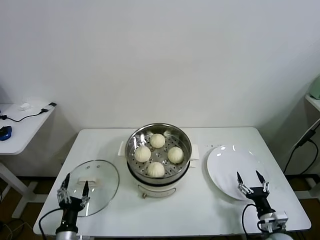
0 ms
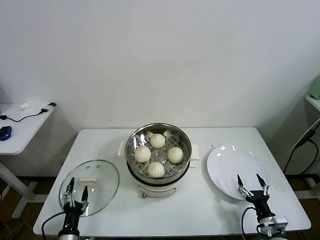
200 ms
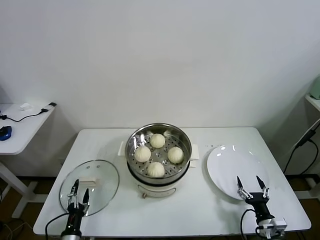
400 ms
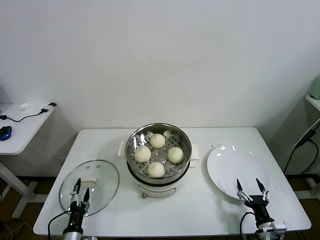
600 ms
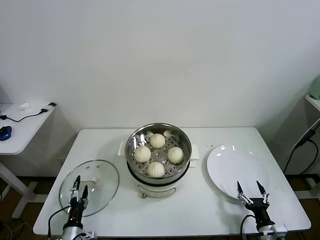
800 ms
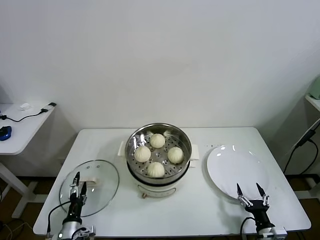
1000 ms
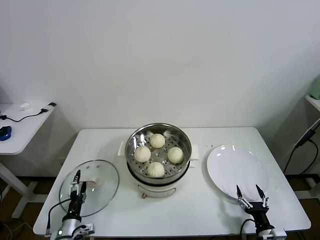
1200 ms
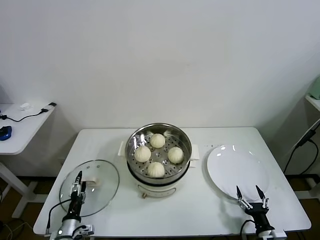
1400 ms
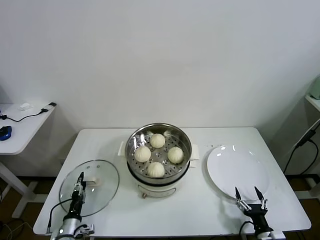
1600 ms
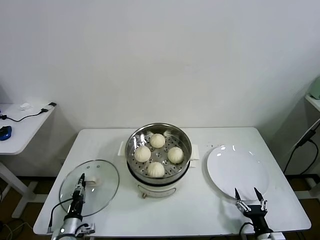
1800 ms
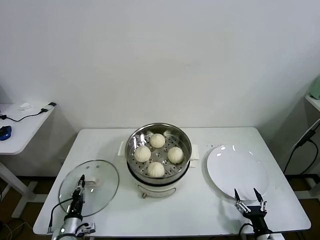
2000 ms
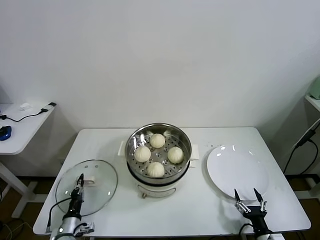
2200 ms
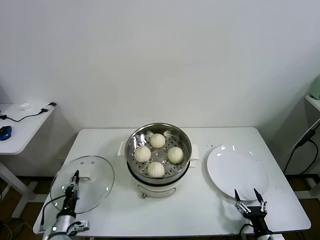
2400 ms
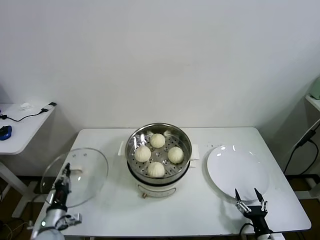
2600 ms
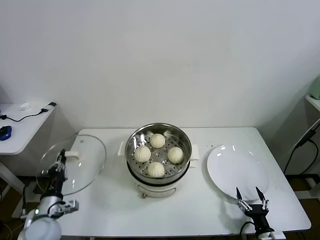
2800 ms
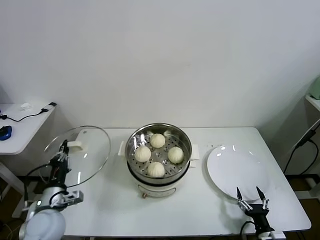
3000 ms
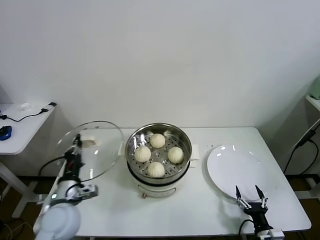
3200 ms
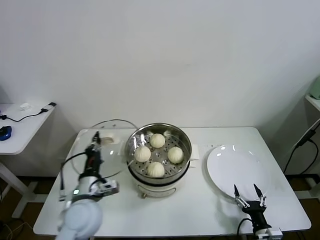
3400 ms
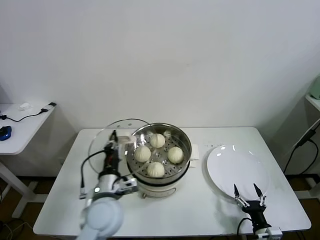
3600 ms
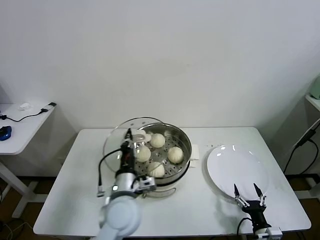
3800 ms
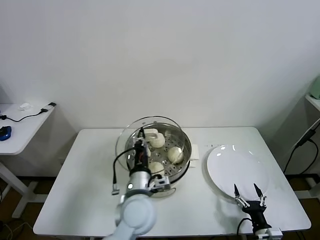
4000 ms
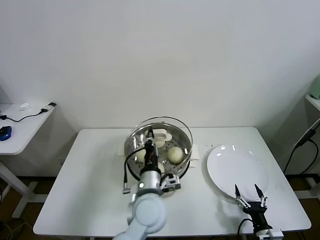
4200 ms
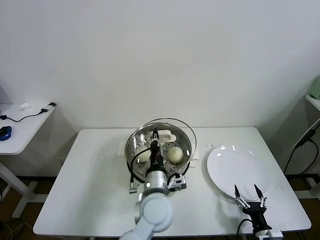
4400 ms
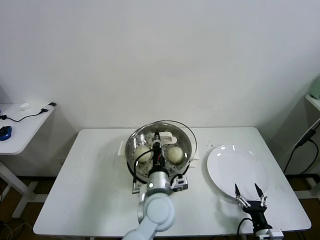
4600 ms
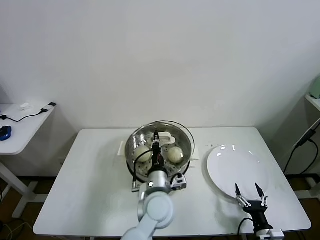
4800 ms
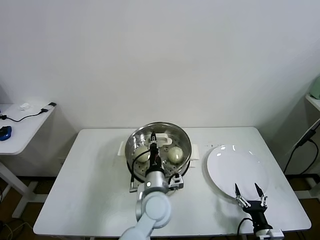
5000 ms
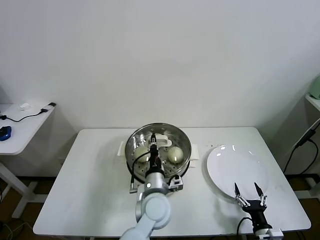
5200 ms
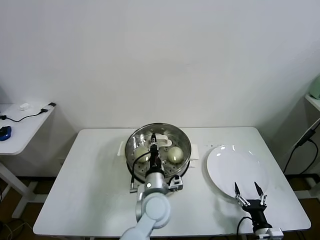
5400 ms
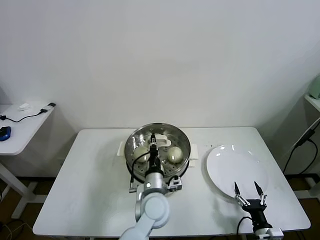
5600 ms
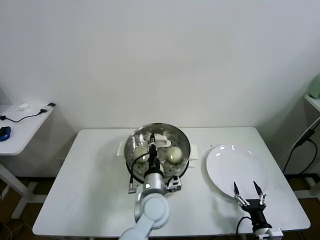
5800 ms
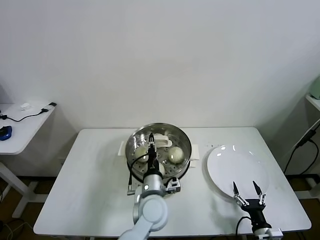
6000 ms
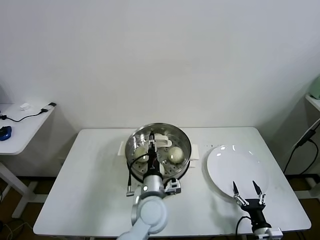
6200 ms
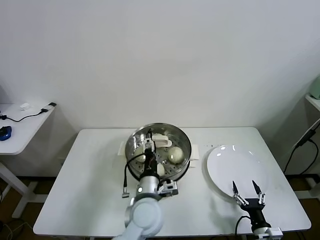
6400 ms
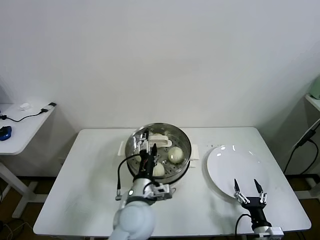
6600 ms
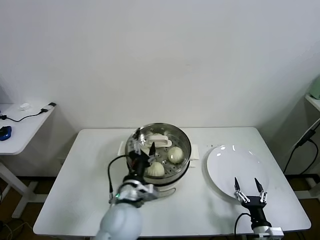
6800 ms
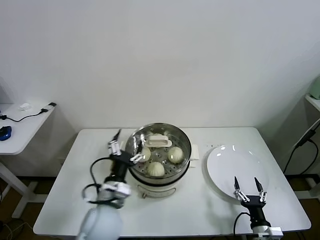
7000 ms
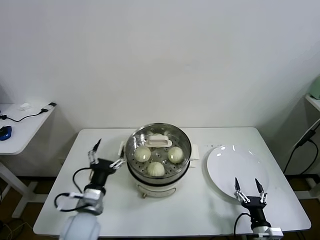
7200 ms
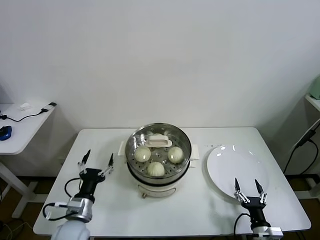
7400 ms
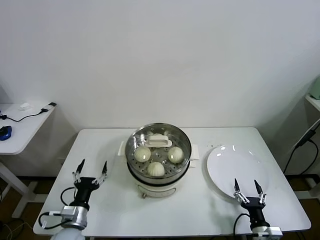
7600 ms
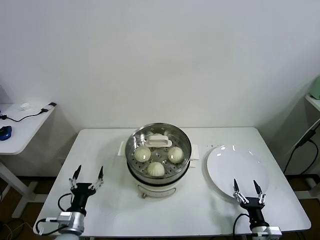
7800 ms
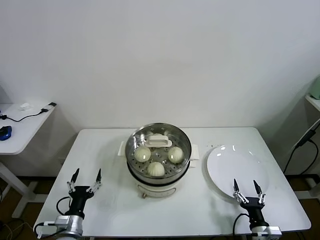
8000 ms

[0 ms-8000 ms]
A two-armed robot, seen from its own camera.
Task of the whole recording: take steamed baozi put them in steamer.
Step, 0 ms to 2000 ms: Grasp the pot lid with left gripper.
Step, 2200 ms to 6600 ms: Place the pot lid on the steamer with left gripper.
0 ms to 1600 ms: The left gripper shifts about 10 cm downward and forward. Meanwhile the right gripper goes some 5 cm backward.
1600 ms to 3200 ms: The left gripper shifts some 20 cm upward, and closes its fingers.
3200 ms to 4800 ms: The left gripper heads to the right, covering about 30 cm.
4800 ms to 6400 ms: The left gripper opens.
6400 ms to 8000 ms: The left gripper is displaced to the left and downward by about 30 cm.

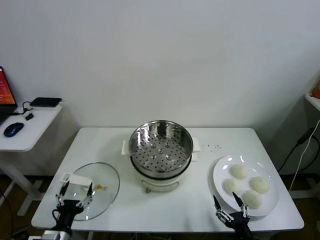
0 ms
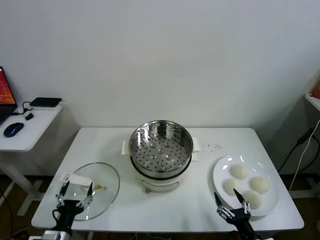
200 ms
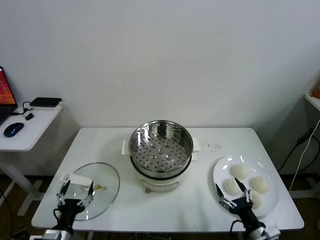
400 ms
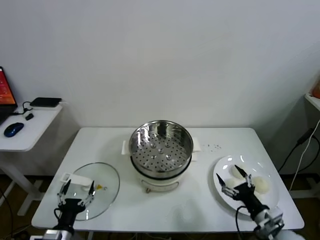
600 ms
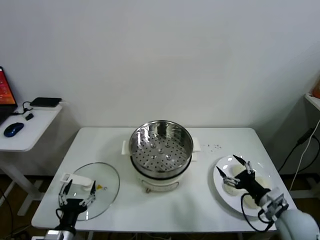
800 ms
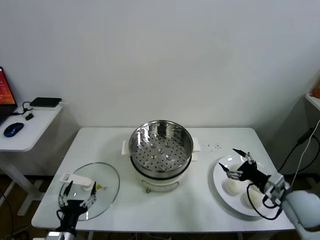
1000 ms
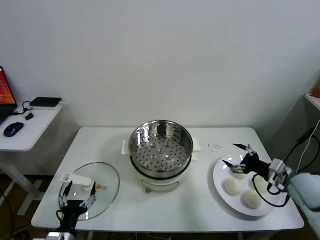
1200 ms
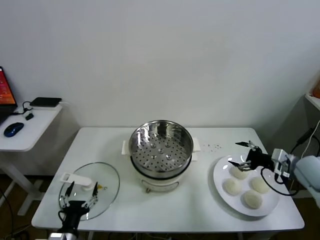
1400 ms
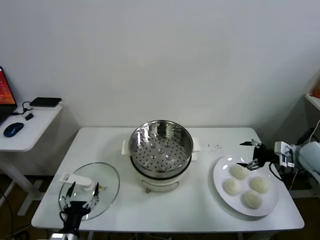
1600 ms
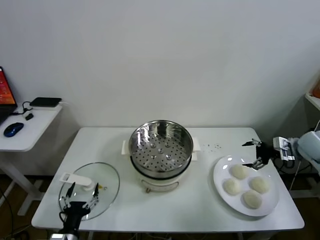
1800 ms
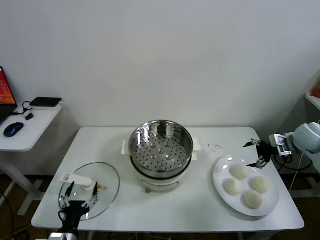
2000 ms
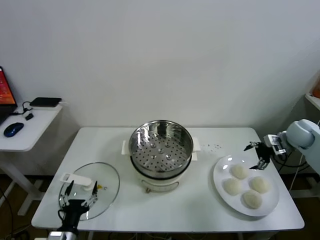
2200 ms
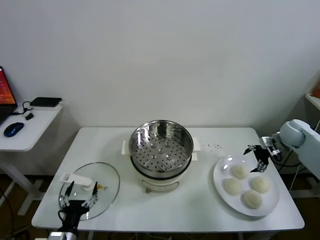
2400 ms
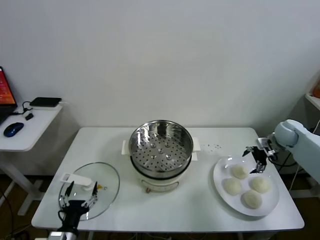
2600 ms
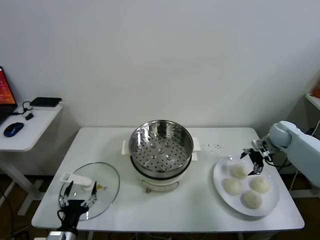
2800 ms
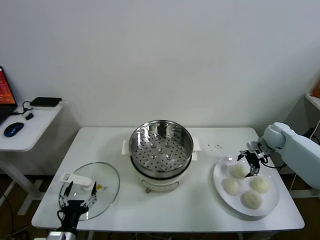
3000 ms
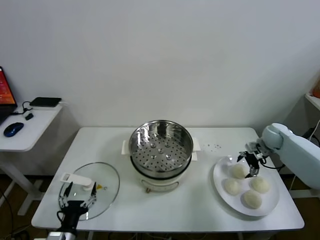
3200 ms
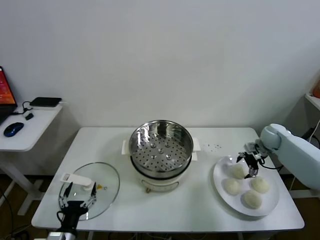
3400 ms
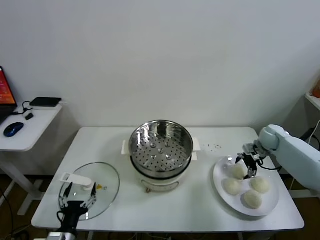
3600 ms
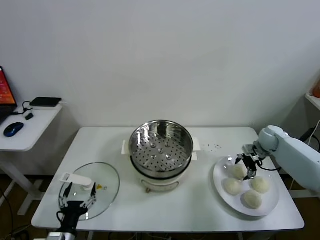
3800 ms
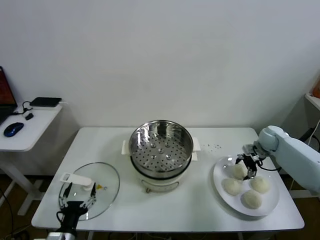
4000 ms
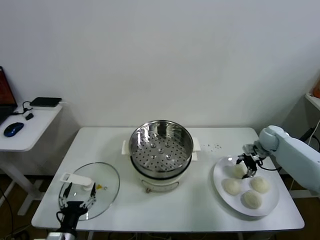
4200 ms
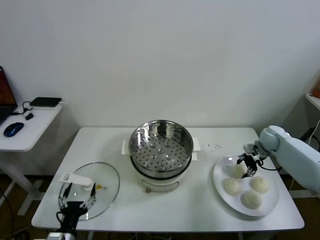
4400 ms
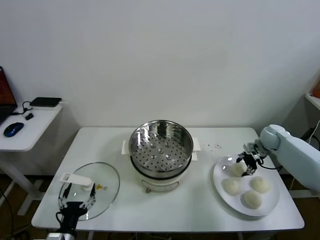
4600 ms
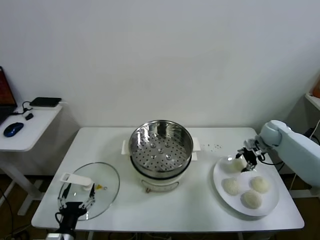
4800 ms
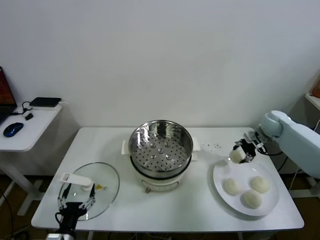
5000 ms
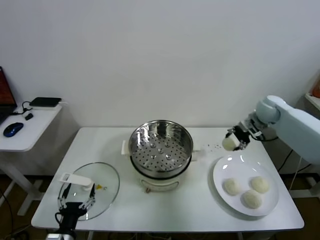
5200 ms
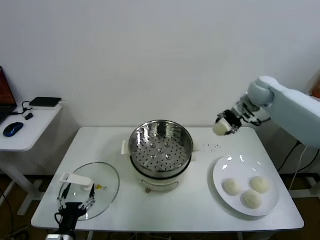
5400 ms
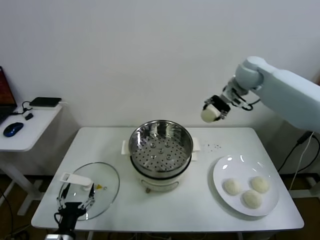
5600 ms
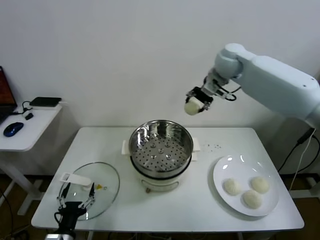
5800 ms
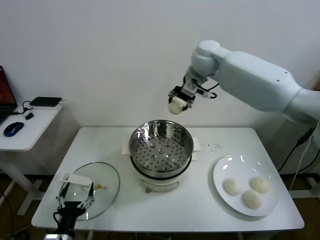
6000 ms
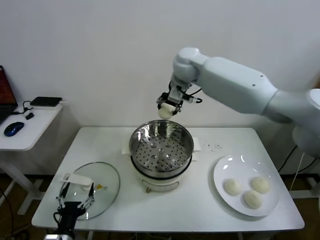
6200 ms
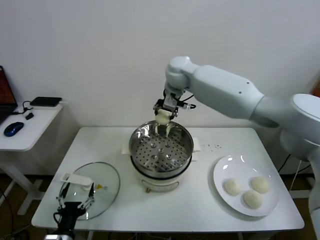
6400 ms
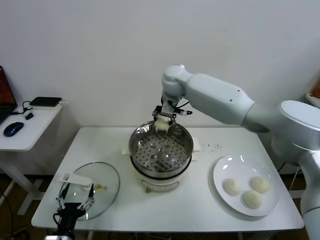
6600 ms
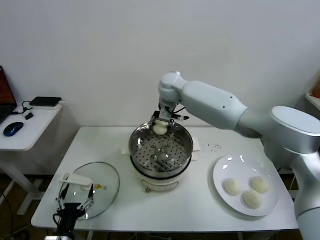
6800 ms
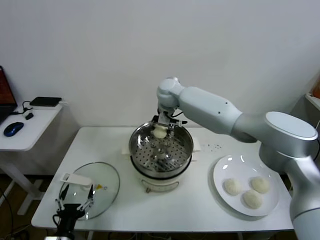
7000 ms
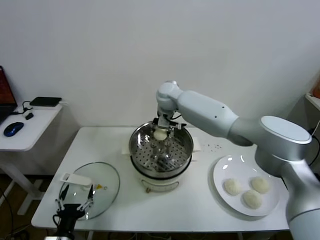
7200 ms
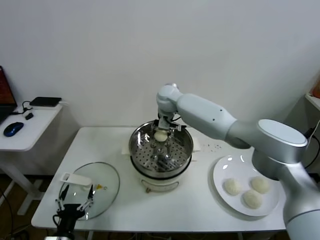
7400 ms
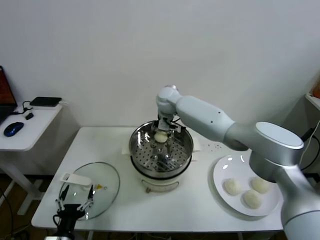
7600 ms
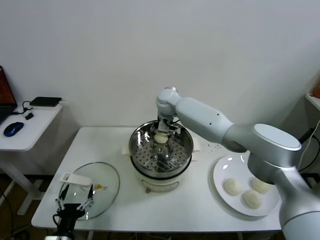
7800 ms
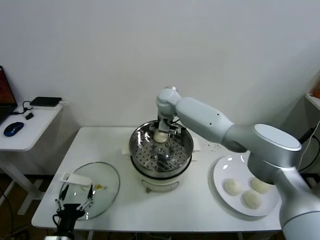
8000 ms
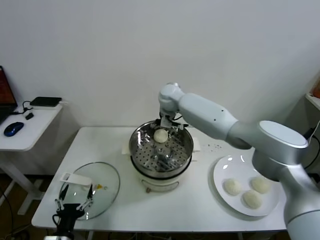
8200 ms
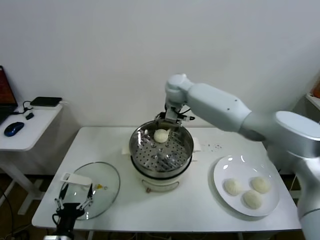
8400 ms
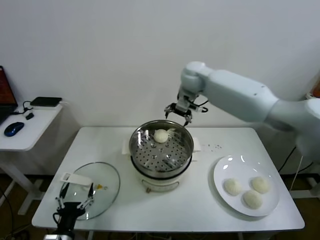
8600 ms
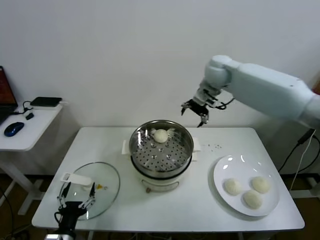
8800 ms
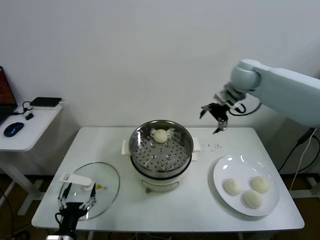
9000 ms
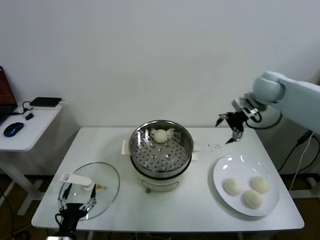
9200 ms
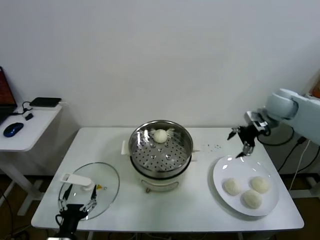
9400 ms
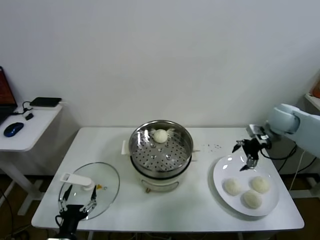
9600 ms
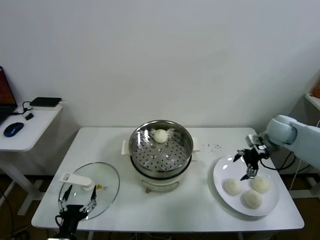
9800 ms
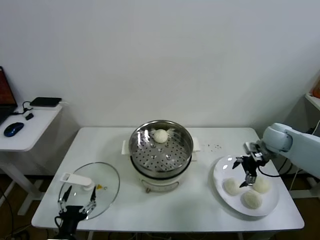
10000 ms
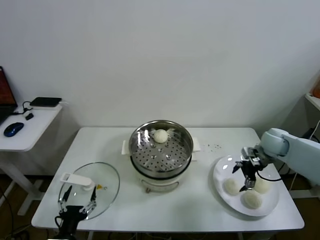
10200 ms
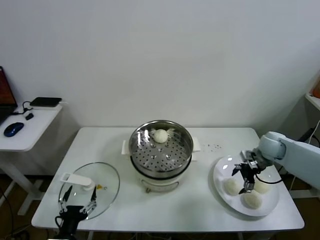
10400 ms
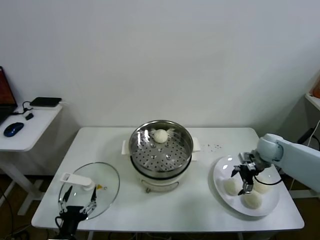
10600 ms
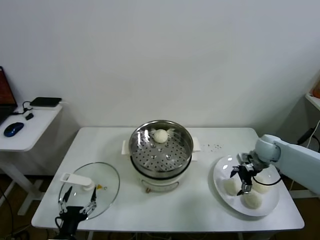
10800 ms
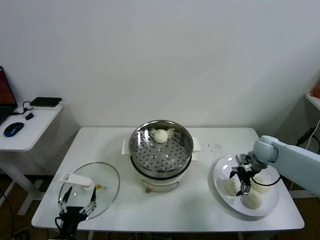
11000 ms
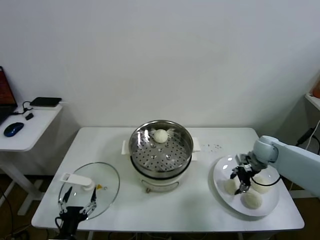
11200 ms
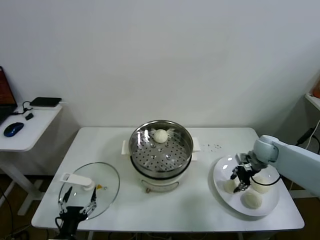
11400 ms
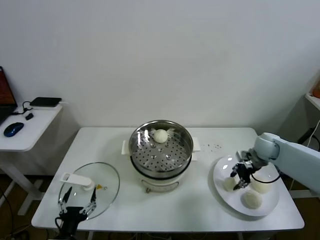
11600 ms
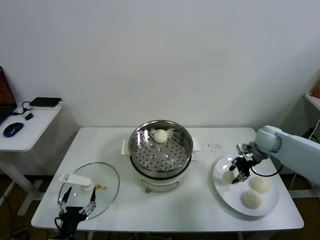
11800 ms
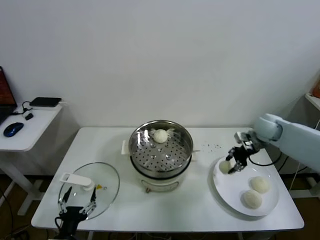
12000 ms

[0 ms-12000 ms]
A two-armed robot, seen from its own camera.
Task of the whole recording: take steamed baozi put them in steamer.
Step, 0 ms to 4400 ms: Grasp the baozi in the plate with right gripper.
Step, 4600 ms to 8000 ms: Place the baozi on the steamer with right gripper.
Step, 8200 ms to 11400 ms: Grasp the baozi in the plate with right gripper.
1600 ms to 3000 ms: The right gripper is displaced forward and downward by roughly 15 cm.
3000 ms to 4400 ms: The right gripper closes.
4400 ms to 6000 ms: The right gripper heads to the left and upward, covering about 50 cm.
6000 ms to 7600 ms: The right gripper is displaced downward and to the left by about 20 cm.
7600 ms to 9000 ms: The right gripper is displaced to the right and upward by roughly 30 cm, and opens.
9000 ms to 10400 ms: The right gripper heads downward and to the right, covering roughly 25 cm.
10400 ms to 12000 ms: The right gripper goes approximately 5 cm upward, and closes up.

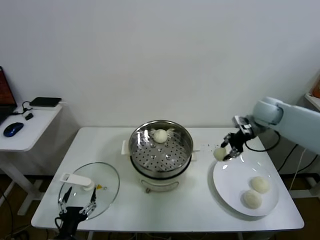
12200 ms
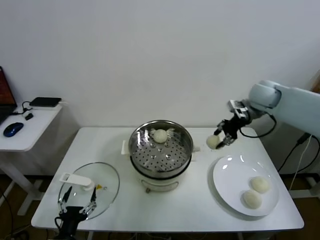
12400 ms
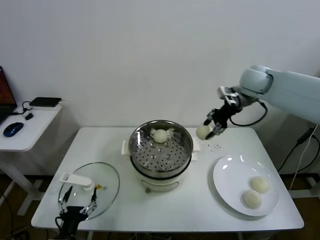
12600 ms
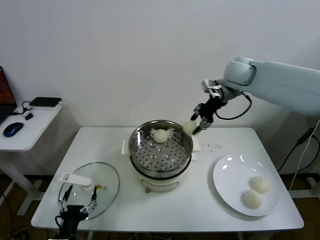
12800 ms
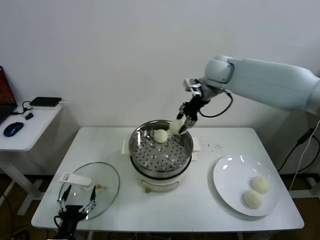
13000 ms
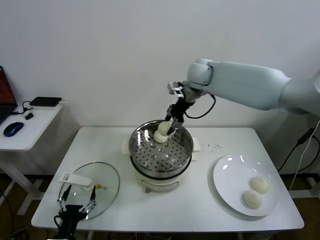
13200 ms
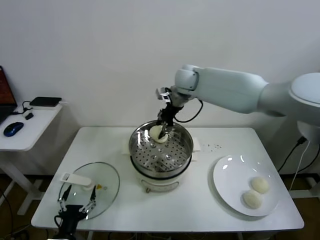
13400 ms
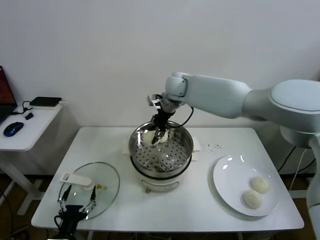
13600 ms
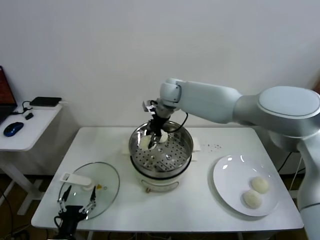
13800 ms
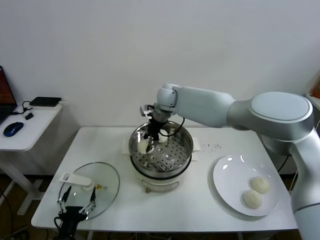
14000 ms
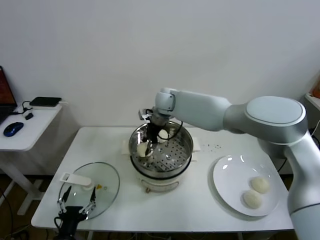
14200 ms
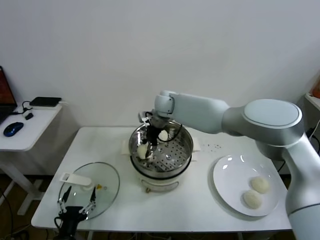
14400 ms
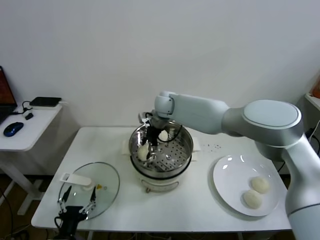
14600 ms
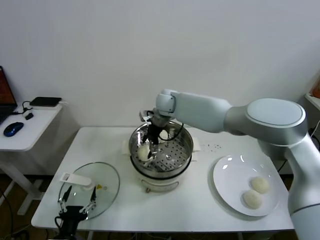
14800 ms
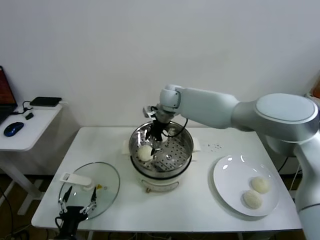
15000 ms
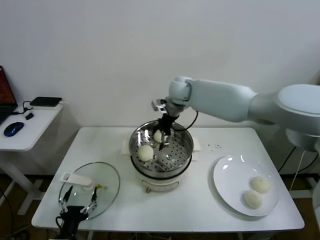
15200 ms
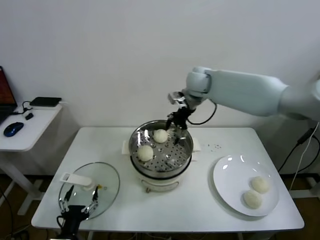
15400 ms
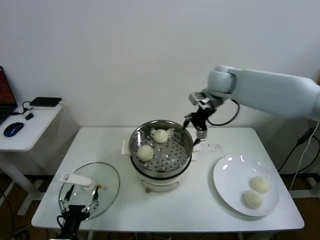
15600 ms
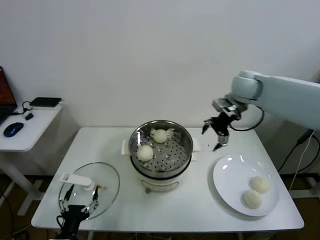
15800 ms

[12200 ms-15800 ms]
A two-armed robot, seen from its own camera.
Task of the whole recording: take steamed baozi put them in steamer.
Step, 12200 ms to 15000 ms: Place the baozi on the steamer with right gripper.
12200 ms to 14000 ms: The right gripper moves to the left, about 35 cm.
14000 ms to 15800 ms: The right gripper shifts about 25 cm to the right, and opens.
